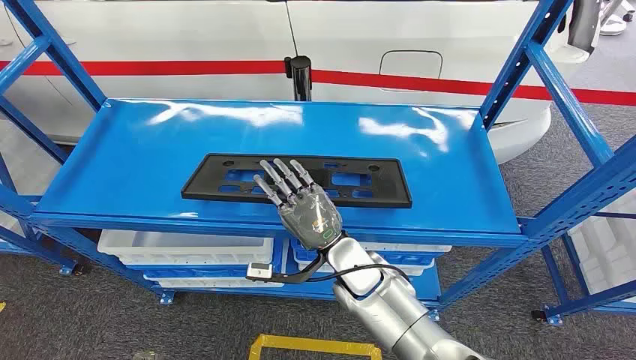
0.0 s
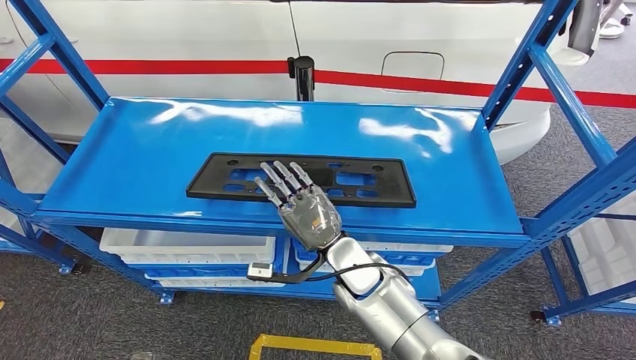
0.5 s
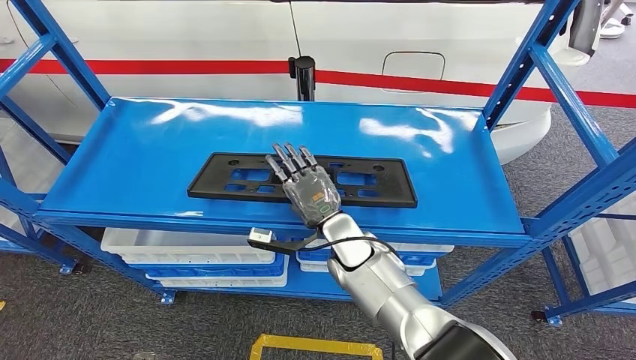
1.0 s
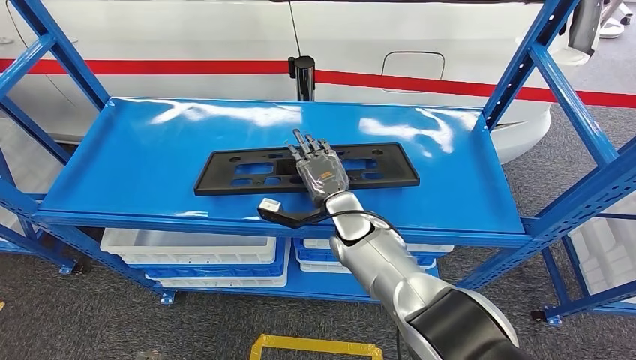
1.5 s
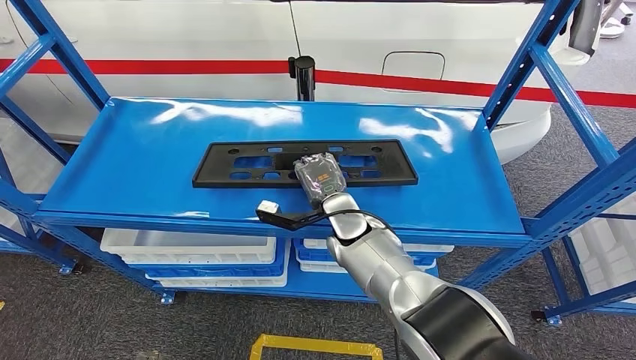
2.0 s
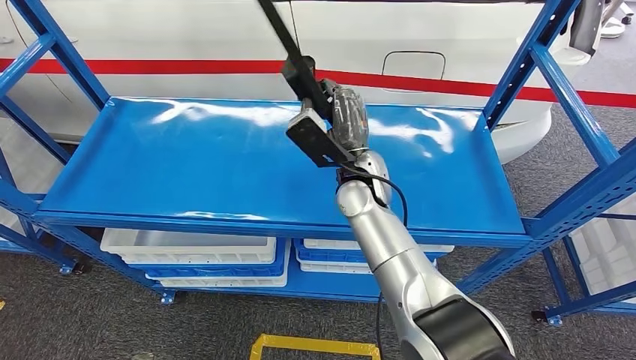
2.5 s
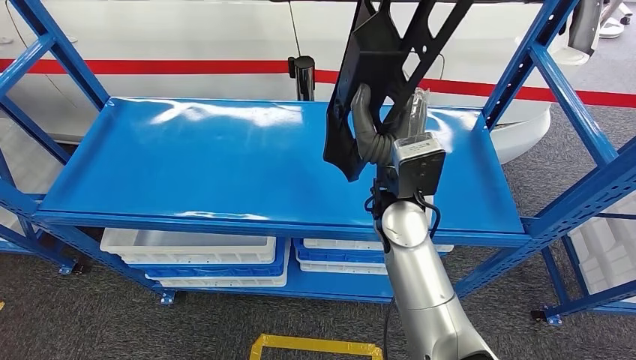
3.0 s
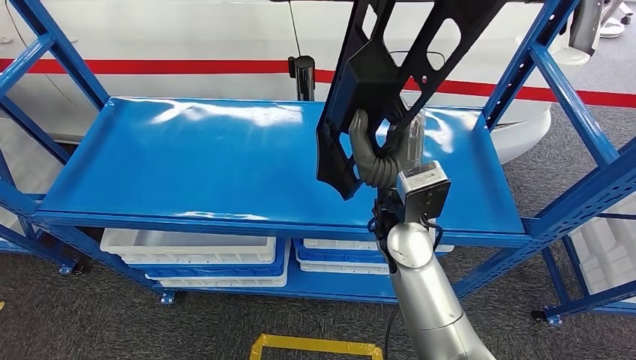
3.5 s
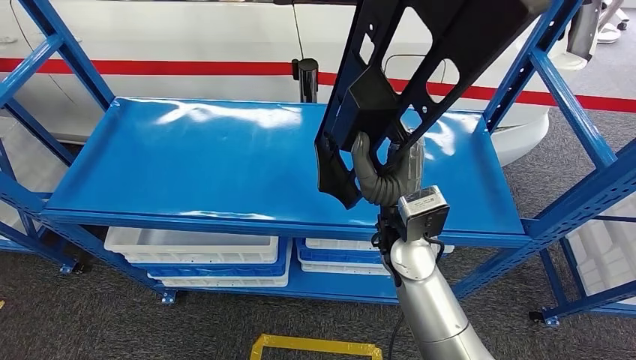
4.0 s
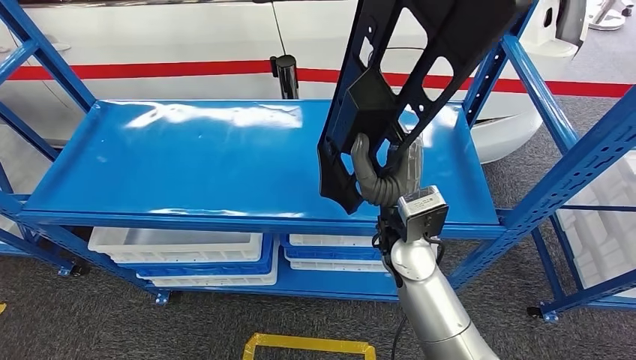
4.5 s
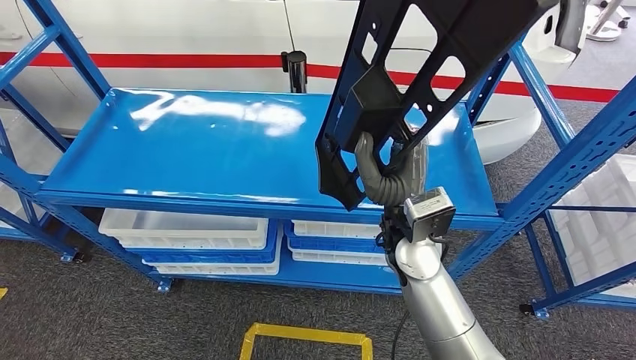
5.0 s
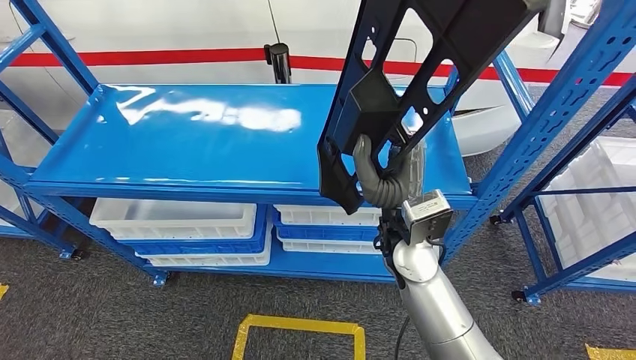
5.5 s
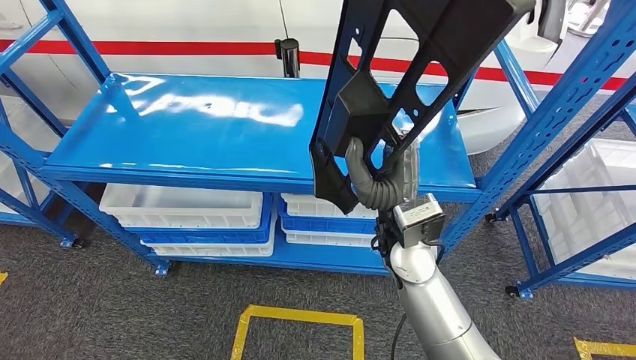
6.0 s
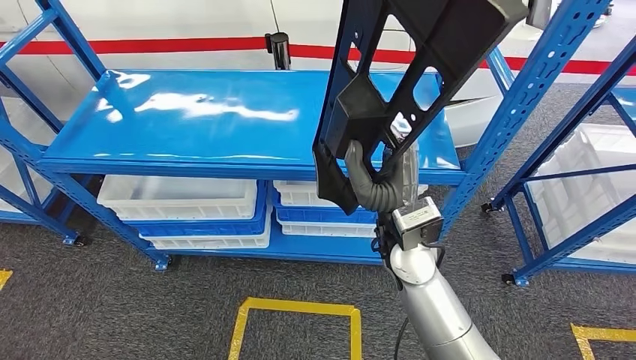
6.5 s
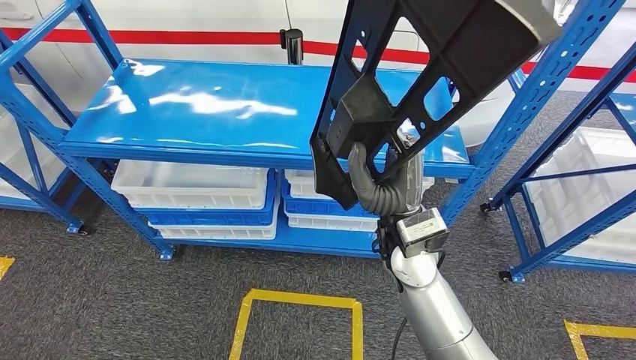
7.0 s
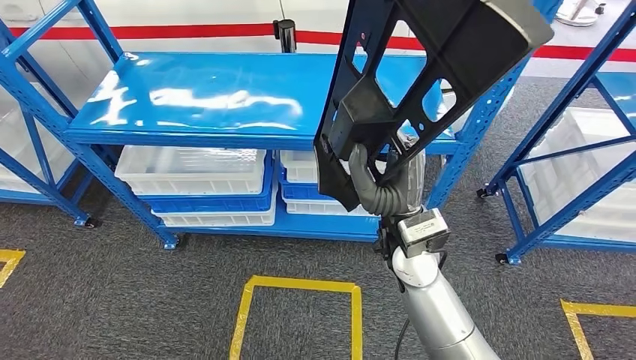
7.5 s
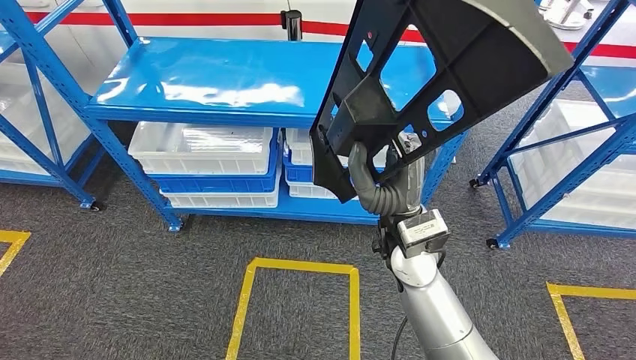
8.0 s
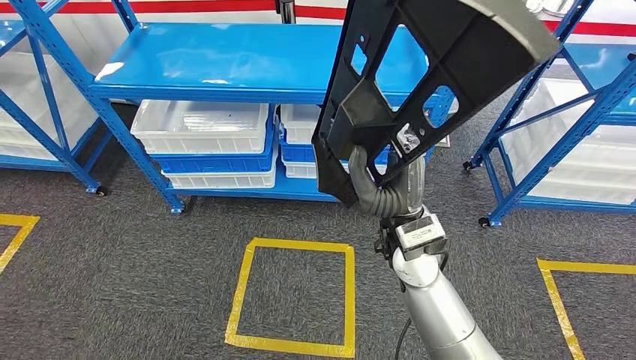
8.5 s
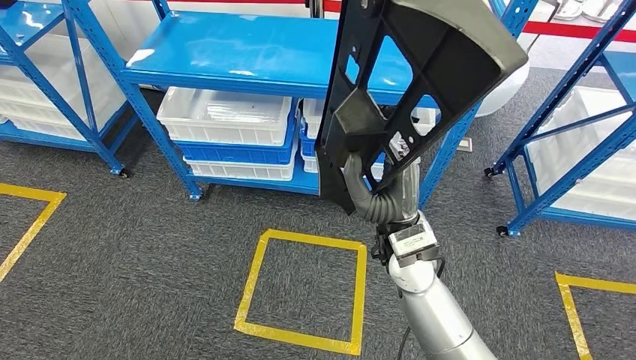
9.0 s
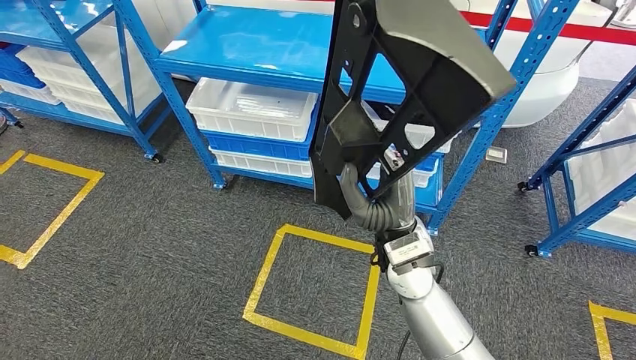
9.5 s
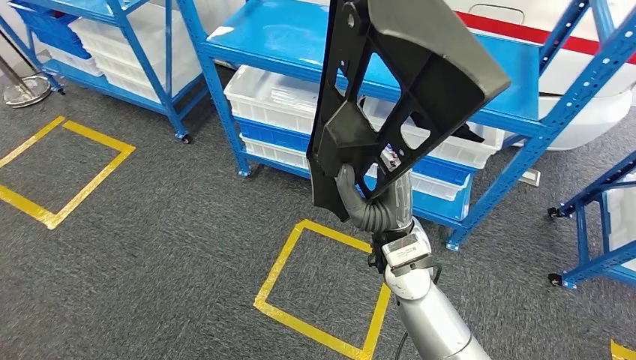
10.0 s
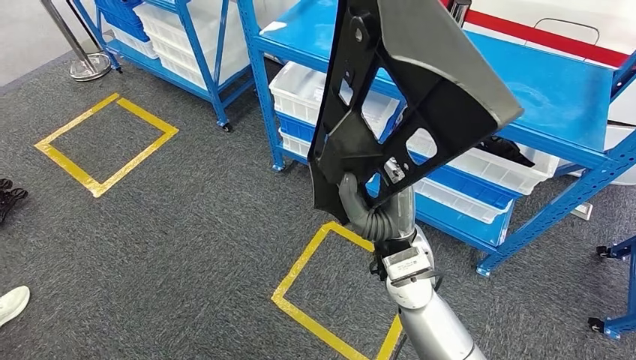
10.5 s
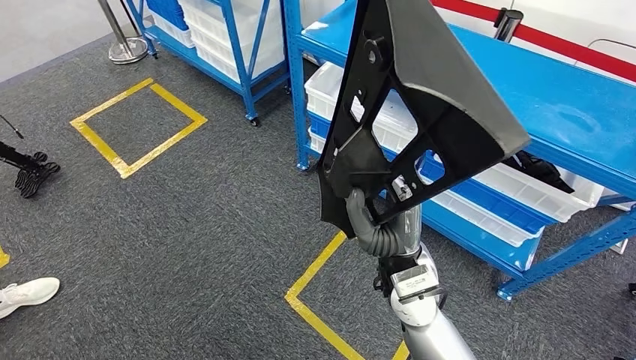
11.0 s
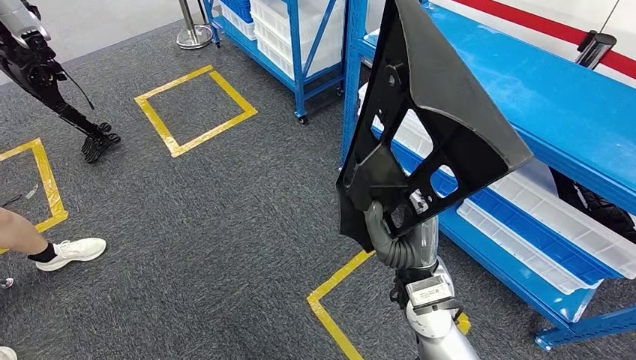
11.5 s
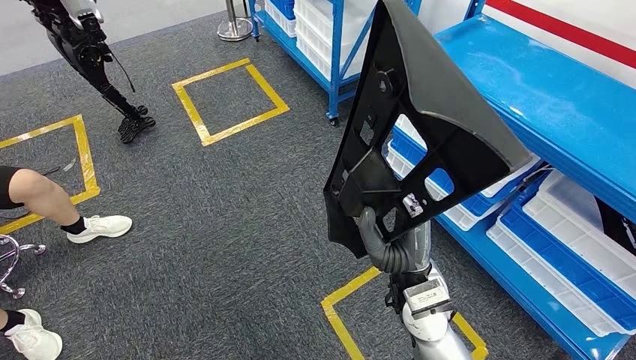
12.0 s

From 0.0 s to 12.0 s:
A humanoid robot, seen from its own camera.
Step, from 0.0 s to 5.5 s: Pick up the large material from the shelf.

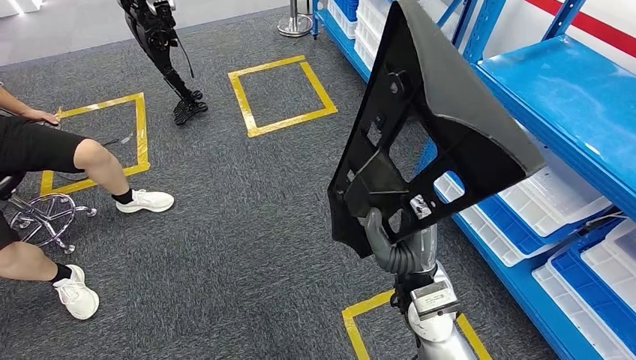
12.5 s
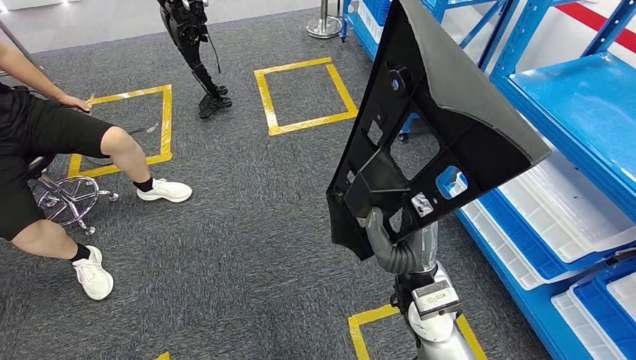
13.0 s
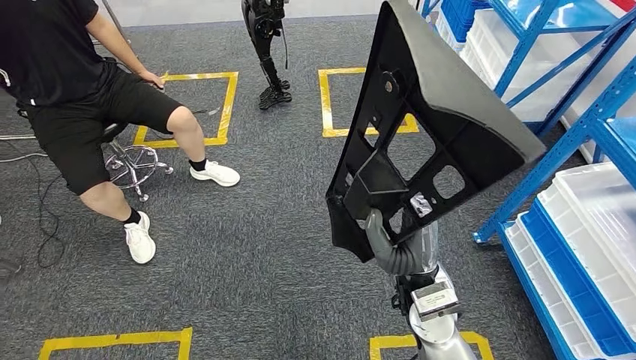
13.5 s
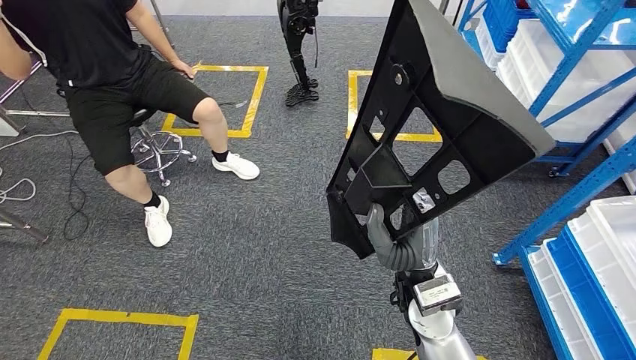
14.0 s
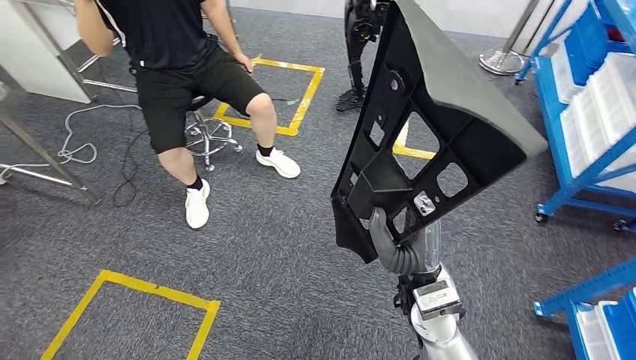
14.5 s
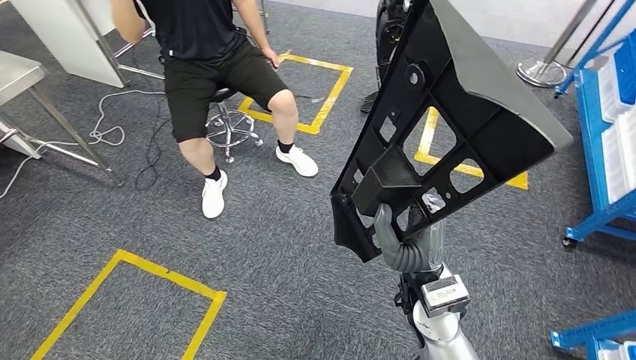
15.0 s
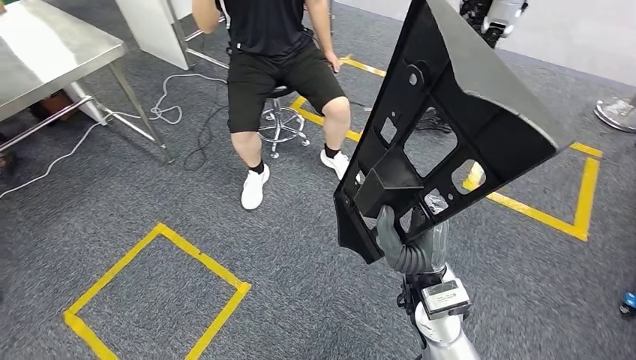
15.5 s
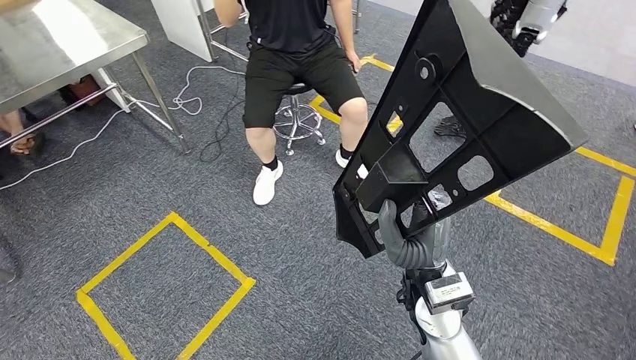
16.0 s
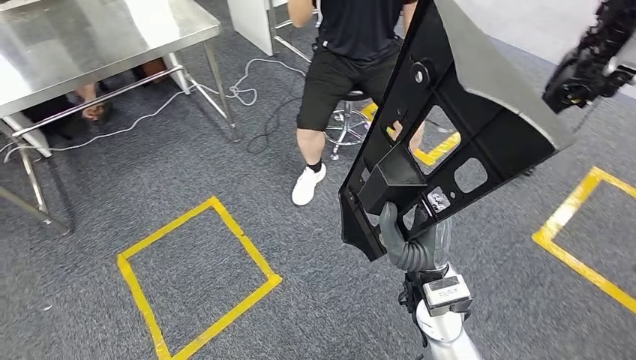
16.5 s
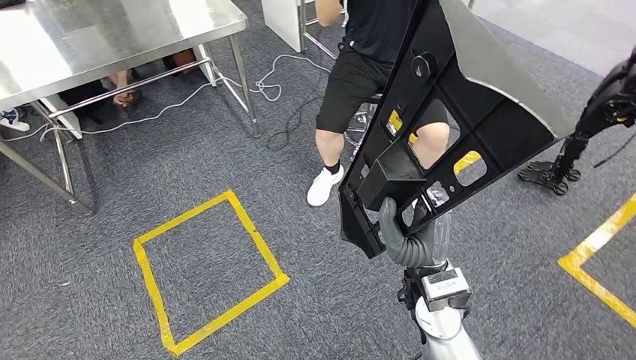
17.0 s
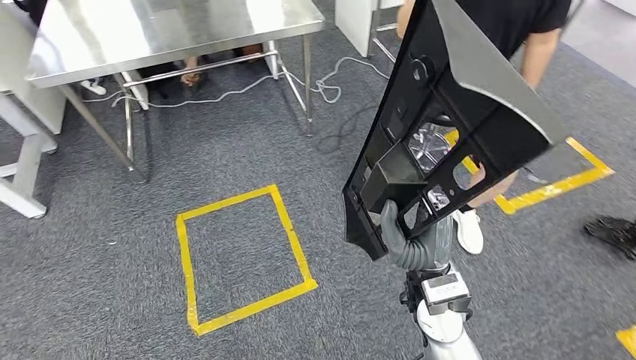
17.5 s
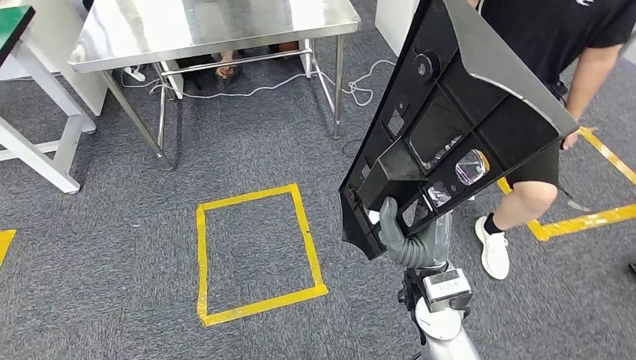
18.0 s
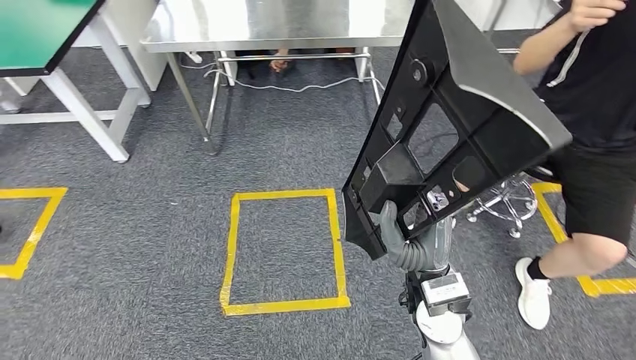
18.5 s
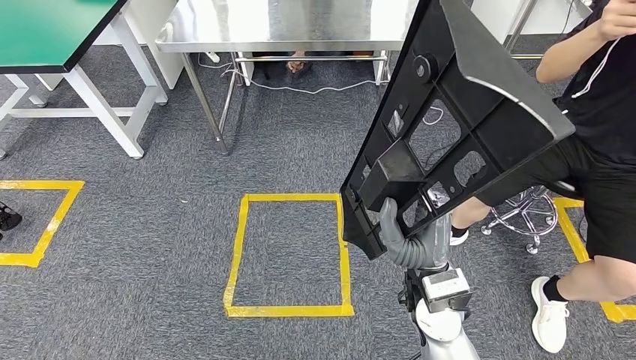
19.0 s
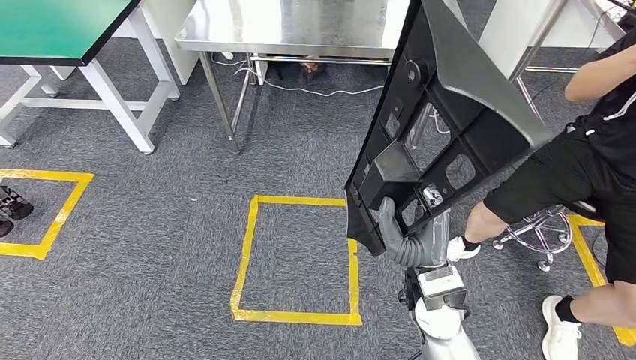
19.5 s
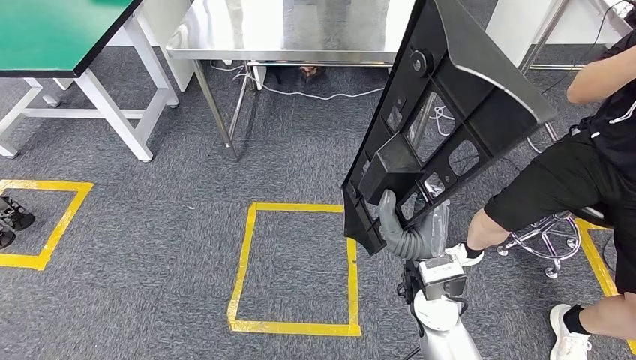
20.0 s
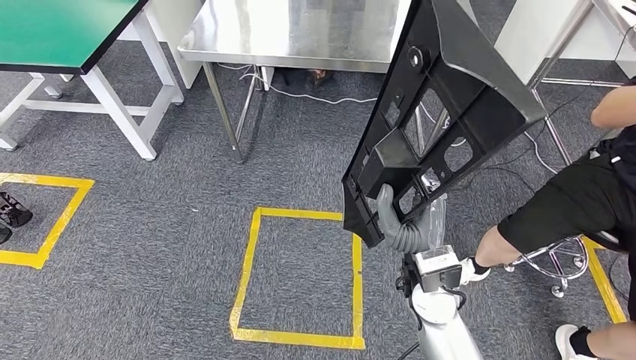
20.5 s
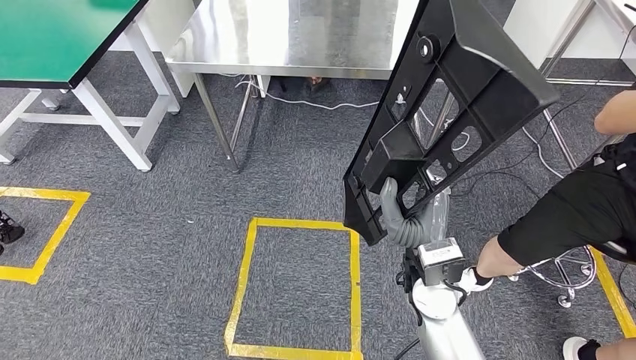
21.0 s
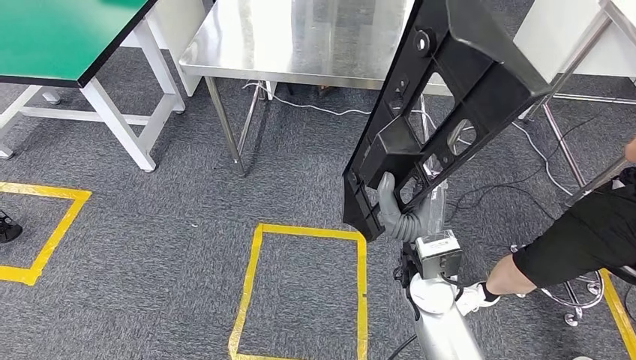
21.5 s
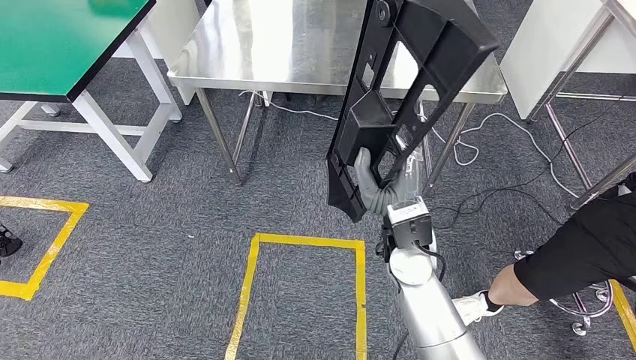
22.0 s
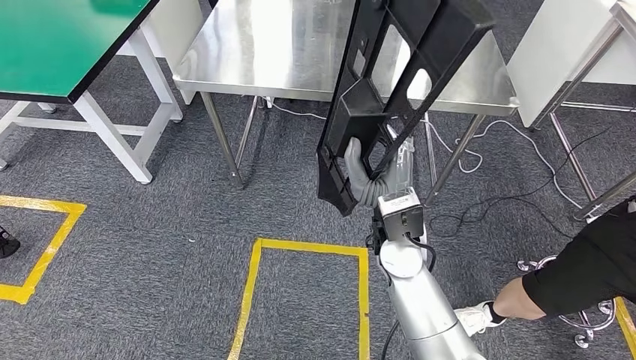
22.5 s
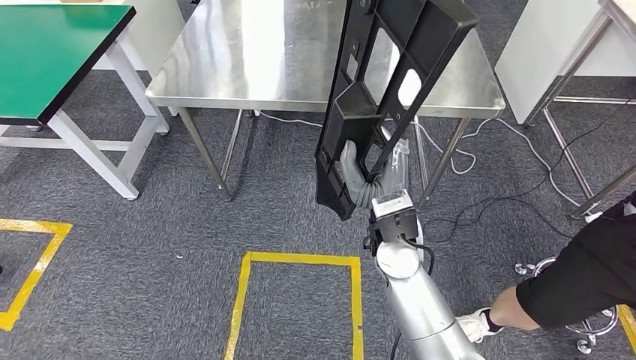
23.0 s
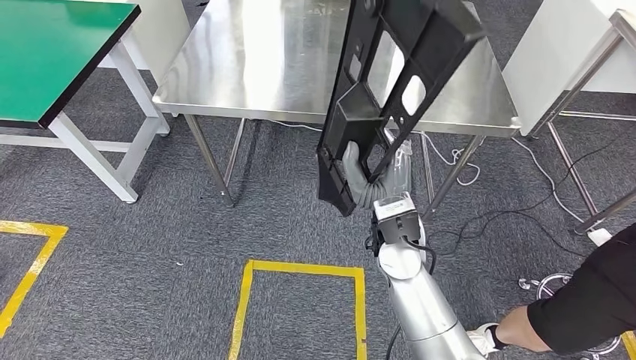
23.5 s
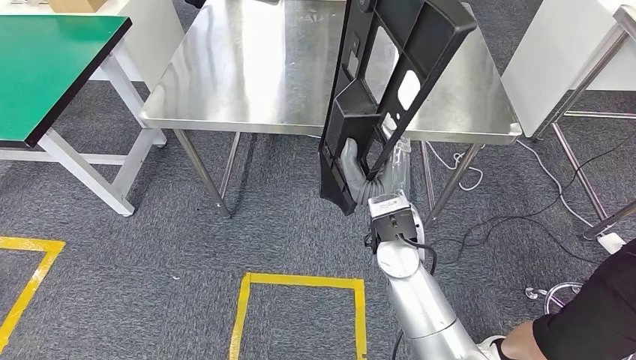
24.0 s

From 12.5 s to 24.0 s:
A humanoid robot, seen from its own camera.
Step, from 12.5 s to 22.0 s: Move the large material to the workbench.
